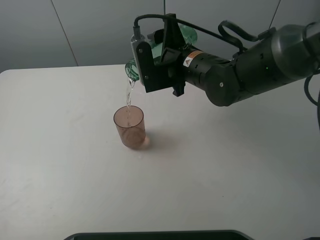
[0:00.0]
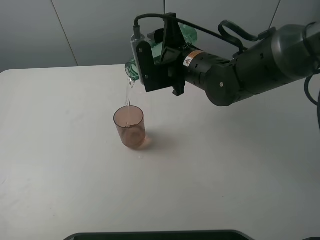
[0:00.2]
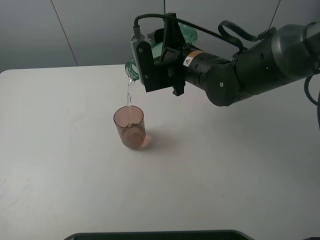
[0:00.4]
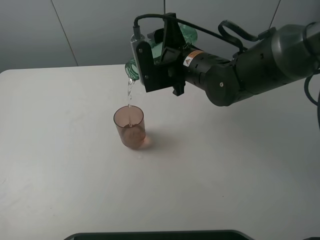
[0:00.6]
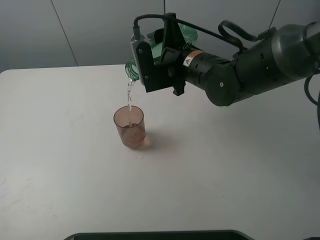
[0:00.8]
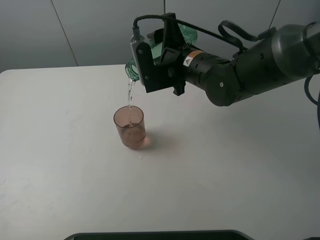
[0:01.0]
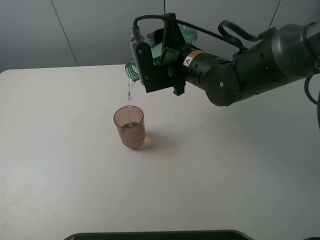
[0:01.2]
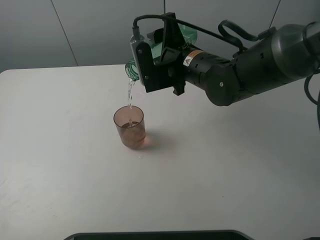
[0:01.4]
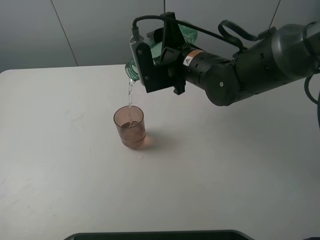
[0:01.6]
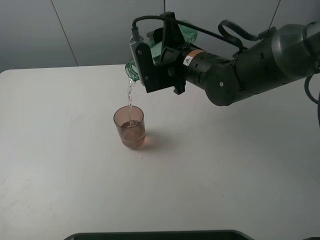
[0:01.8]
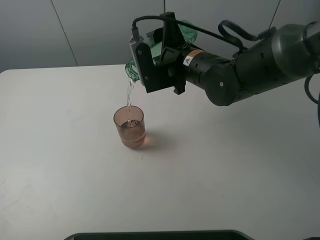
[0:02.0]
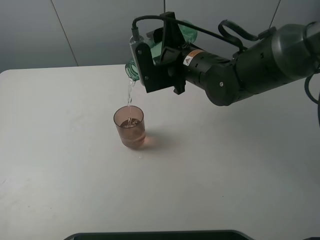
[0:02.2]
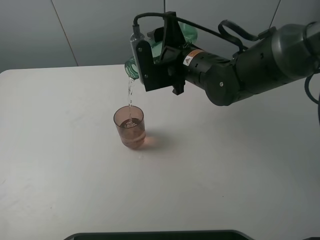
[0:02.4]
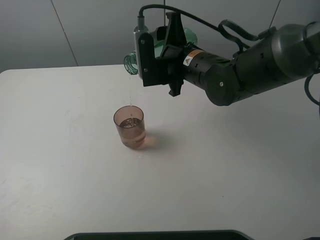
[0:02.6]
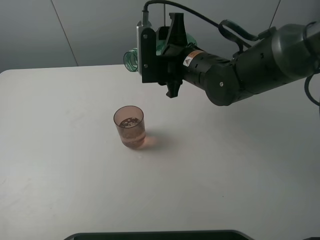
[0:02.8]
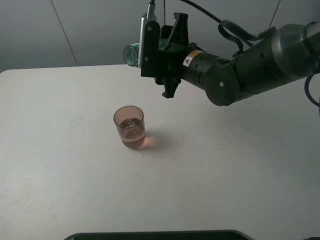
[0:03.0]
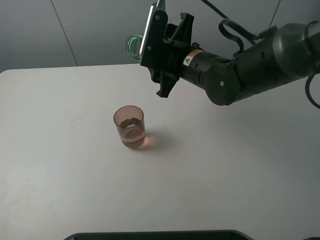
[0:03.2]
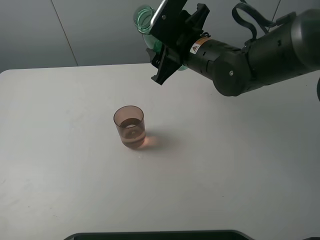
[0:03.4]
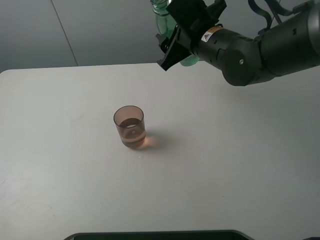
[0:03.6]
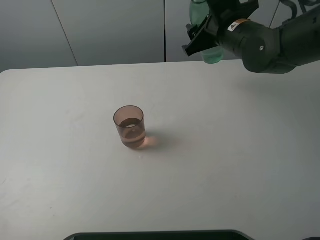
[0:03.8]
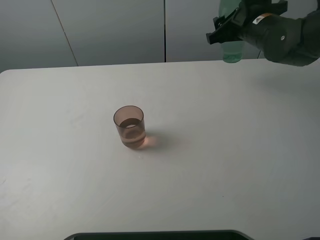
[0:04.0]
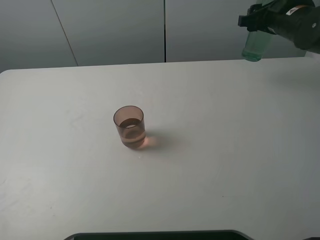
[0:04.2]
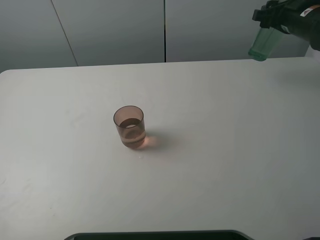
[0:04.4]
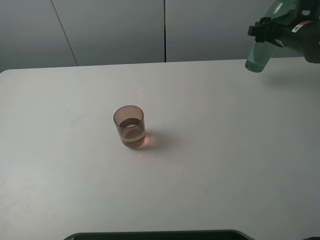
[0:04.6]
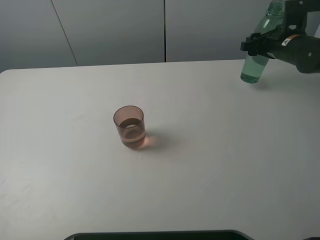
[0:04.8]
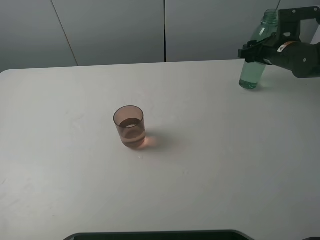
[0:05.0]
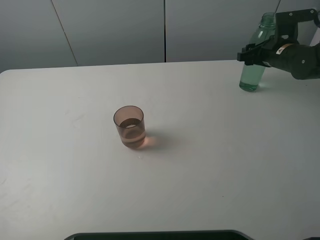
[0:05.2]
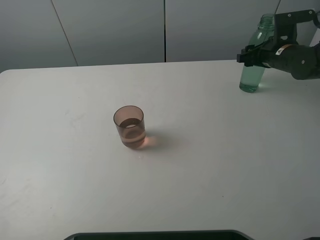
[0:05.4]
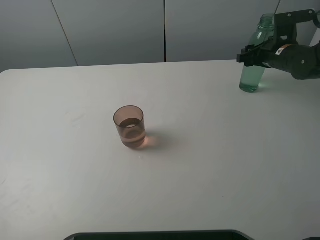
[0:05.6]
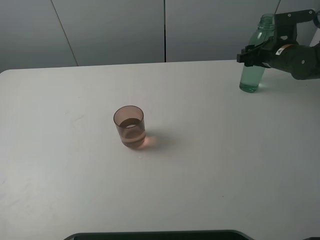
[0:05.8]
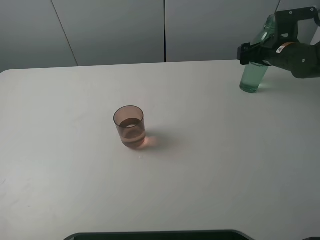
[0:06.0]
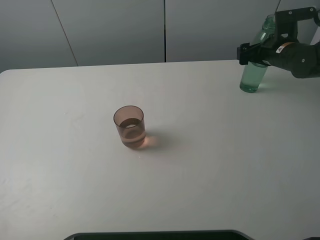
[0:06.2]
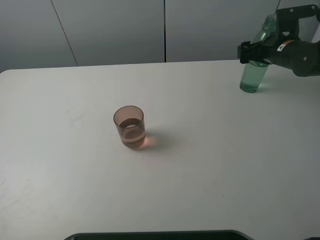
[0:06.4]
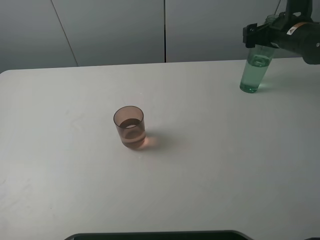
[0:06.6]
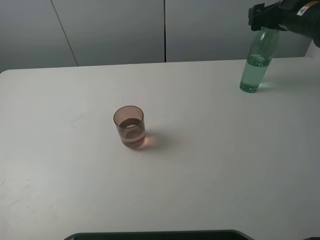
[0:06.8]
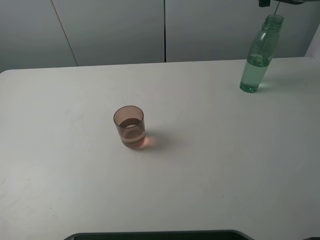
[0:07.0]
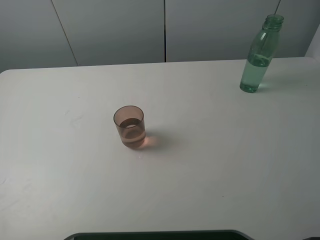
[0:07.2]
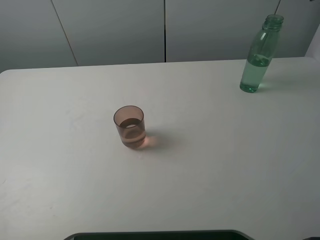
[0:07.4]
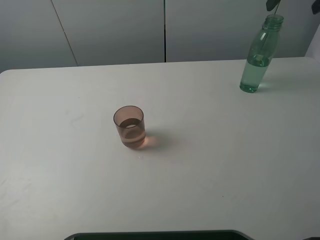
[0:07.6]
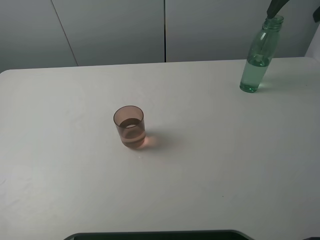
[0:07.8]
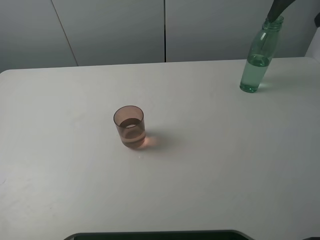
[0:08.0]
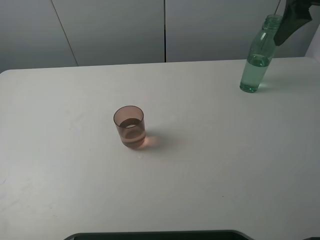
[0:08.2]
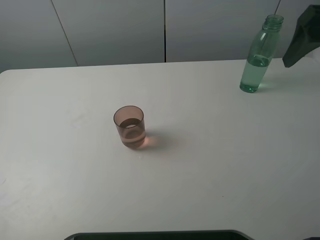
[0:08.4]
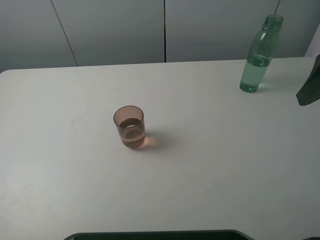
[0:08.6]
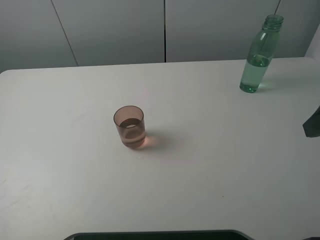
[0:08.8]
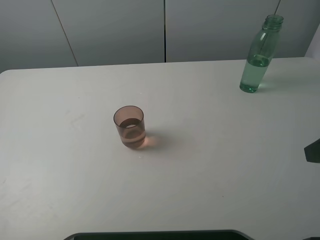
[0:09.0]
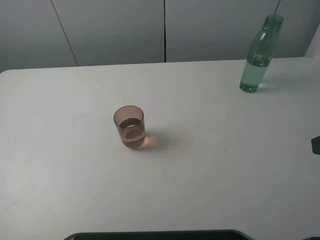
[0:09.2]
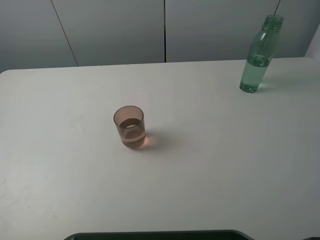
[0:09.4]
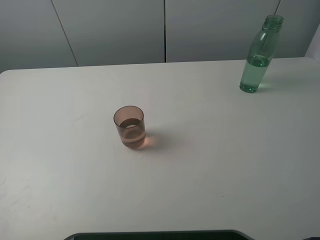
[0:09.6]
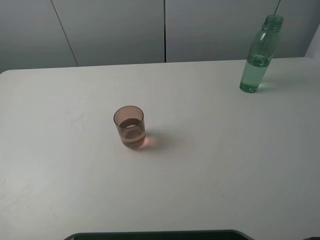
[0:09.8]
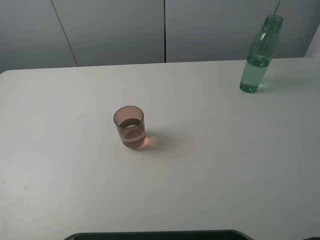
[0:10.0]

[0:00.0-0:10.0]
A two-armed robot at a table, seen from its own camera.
Task of the whole recording: pick up the bottle filled with water and pour it into the pink cup.
Step, 0:00.0 to 0:03.0: Pour water from green bottle to pink cup with the right gripper.
Step, 0:03.2 to 0:06.6: Place the green bottle with the right gripper.
0:00.0 to 0:01.4: The two grippers keep their place.
0:01.4 to 0:02.8: There are only small adjustments of the grippers.
0:02.8 to 0:04.2: The right gripper goes about 20 cm to the right and forward.
0:04.2 to 0:05.8: The right gripper is displaced downward by approximately 10 cm.
0:05.8 to 0:07.2: The right gripper travels upward by roughly 20 cm, and opens.
0:07.2 to 0:08.6: The right gripper heads backward, covering approximately 25 cm.
0:08.6 to 0:10.0: The right gripper heads backward, covering about 15 cm.

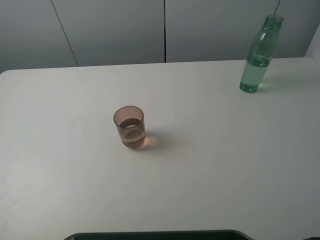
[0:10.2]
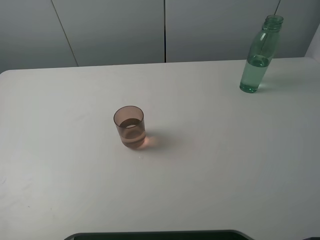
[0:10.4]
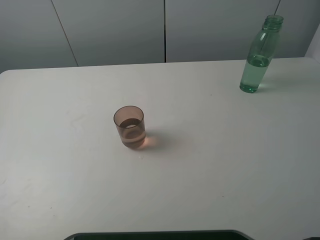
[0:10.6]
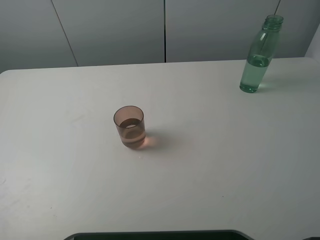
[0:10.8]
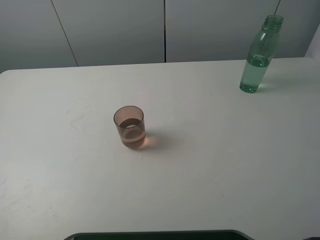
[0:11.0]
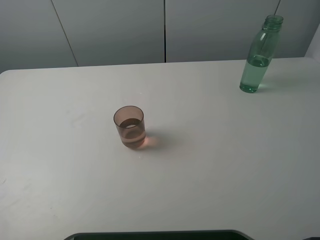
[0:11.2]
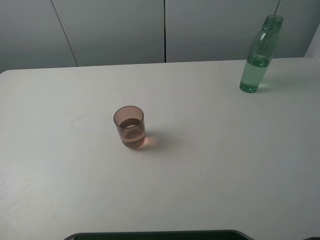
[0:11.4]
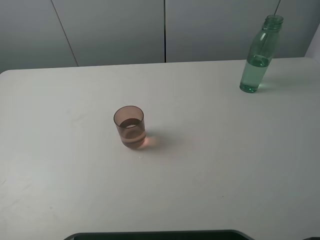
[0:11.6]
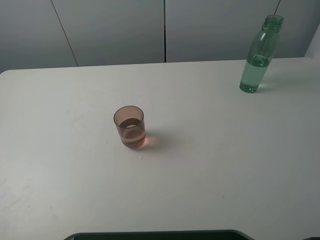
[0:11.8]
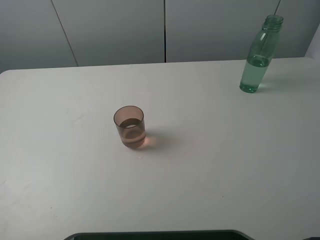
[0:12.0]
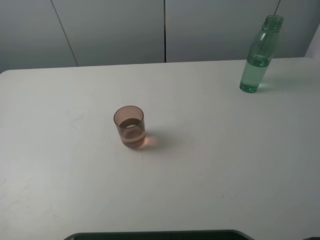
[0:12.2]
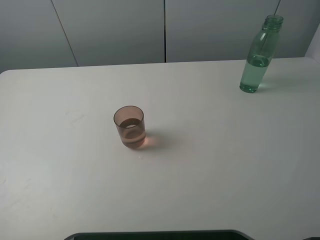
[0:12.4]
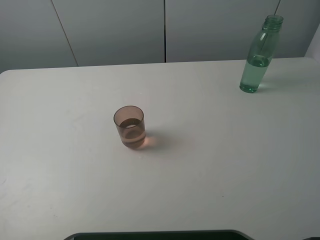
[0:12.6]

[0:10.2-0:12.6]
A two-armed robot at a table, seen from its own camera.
Task of the whole recording: pick up the bottle filled with water and pour it into the pink cup.
0:10.2 to 0:12.6: Both grippers stay about where they are.
